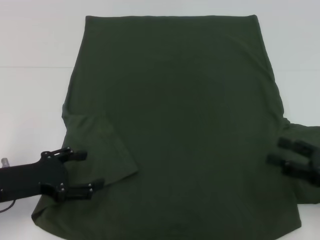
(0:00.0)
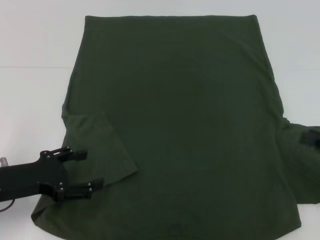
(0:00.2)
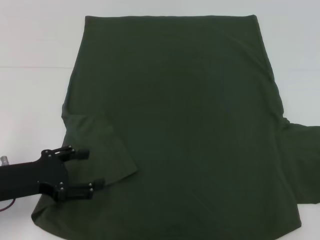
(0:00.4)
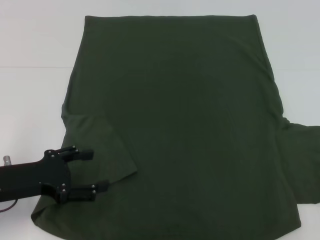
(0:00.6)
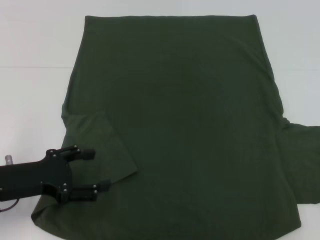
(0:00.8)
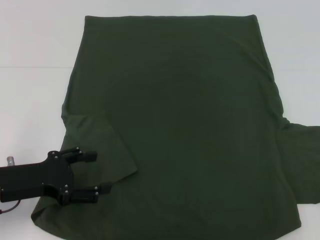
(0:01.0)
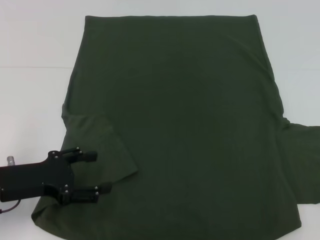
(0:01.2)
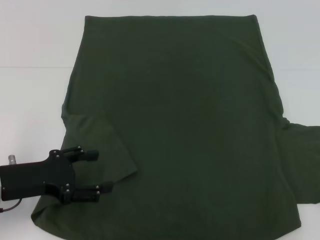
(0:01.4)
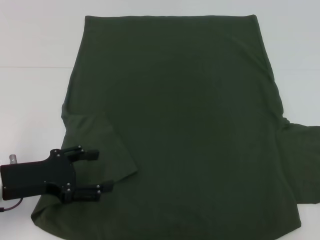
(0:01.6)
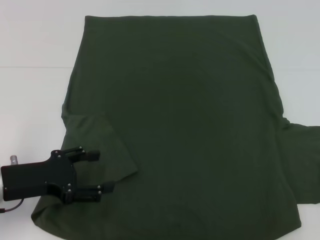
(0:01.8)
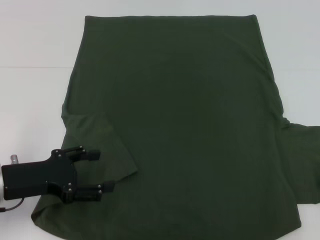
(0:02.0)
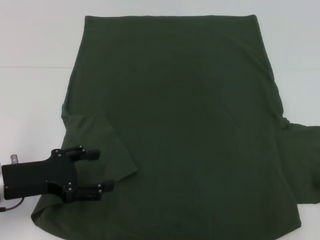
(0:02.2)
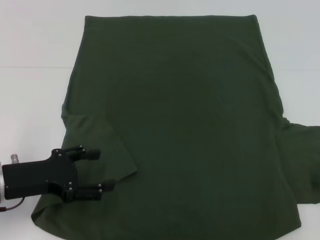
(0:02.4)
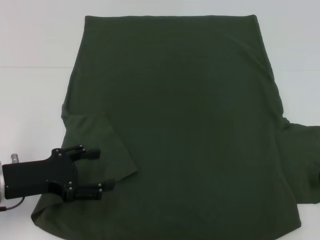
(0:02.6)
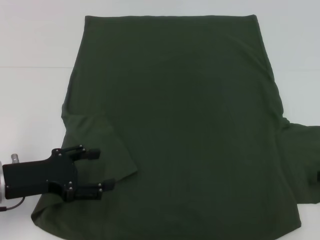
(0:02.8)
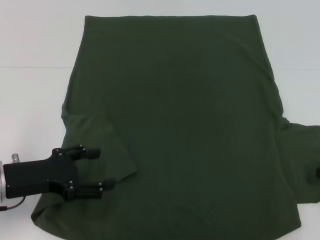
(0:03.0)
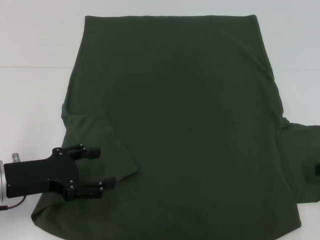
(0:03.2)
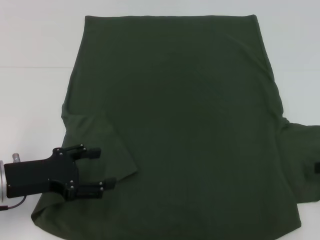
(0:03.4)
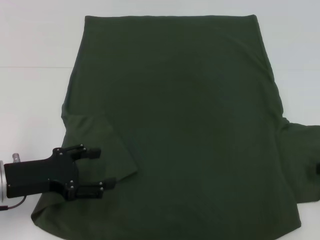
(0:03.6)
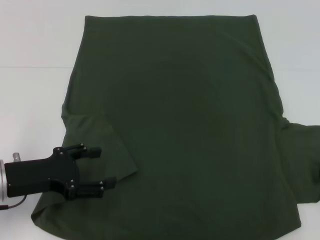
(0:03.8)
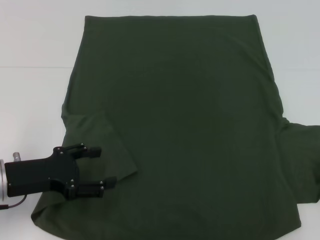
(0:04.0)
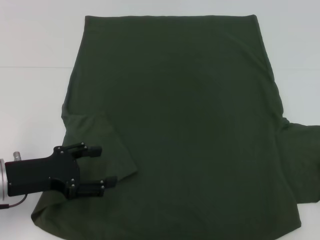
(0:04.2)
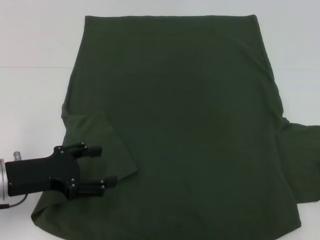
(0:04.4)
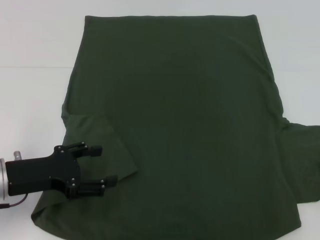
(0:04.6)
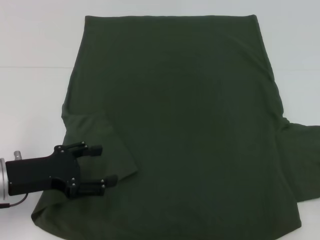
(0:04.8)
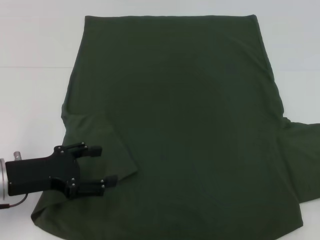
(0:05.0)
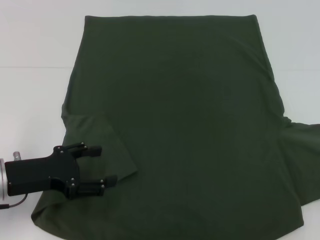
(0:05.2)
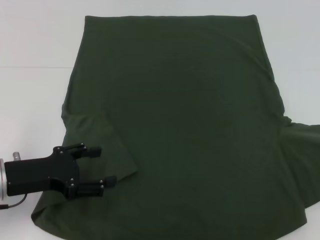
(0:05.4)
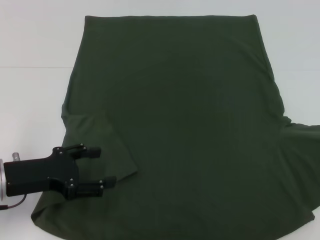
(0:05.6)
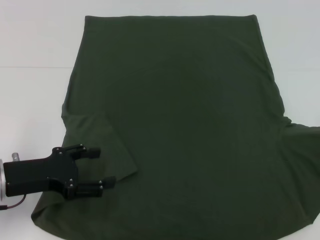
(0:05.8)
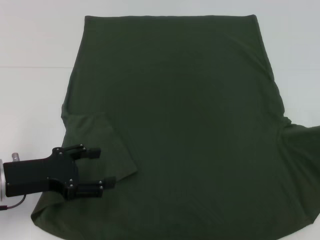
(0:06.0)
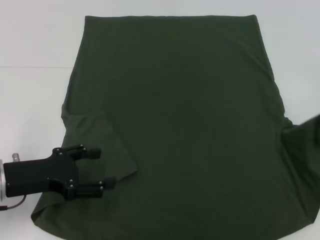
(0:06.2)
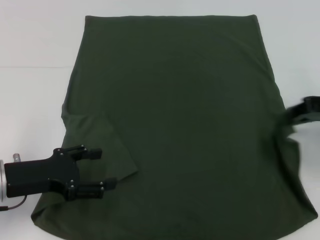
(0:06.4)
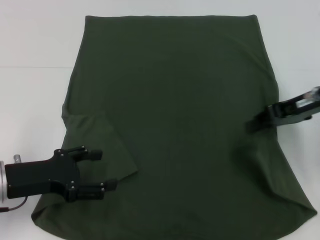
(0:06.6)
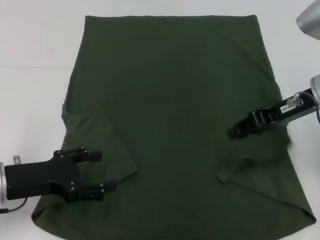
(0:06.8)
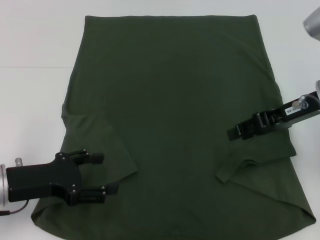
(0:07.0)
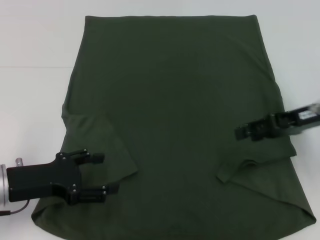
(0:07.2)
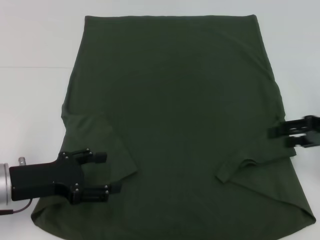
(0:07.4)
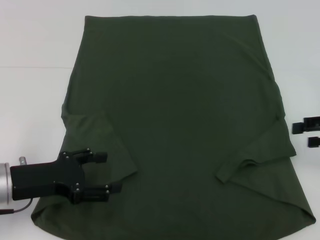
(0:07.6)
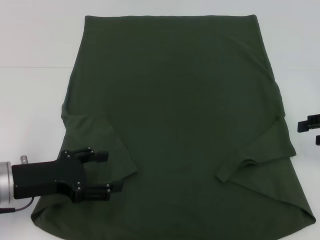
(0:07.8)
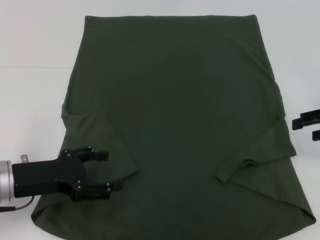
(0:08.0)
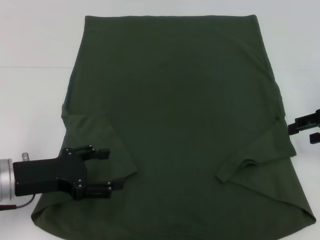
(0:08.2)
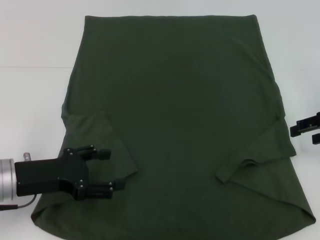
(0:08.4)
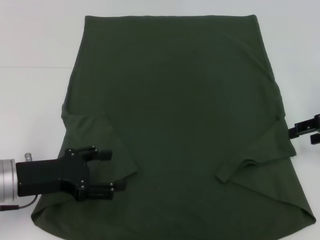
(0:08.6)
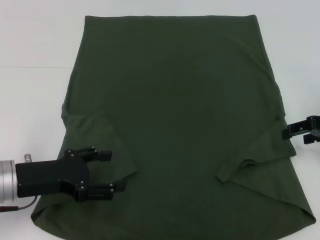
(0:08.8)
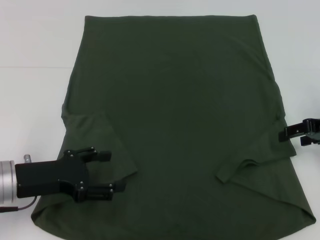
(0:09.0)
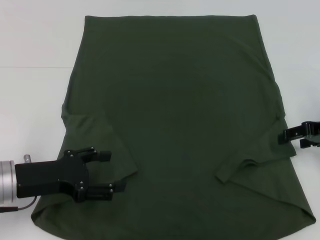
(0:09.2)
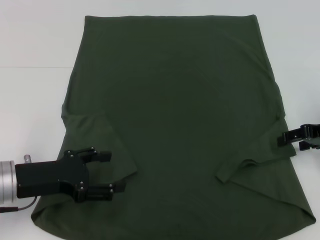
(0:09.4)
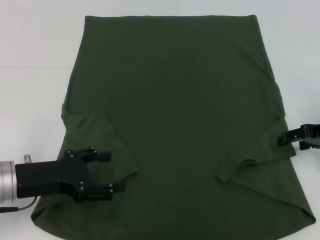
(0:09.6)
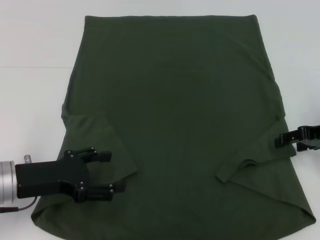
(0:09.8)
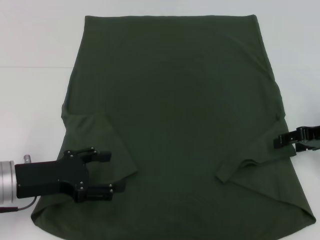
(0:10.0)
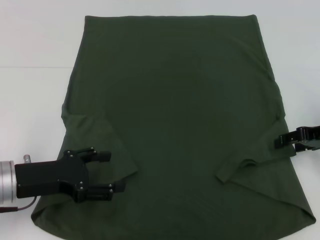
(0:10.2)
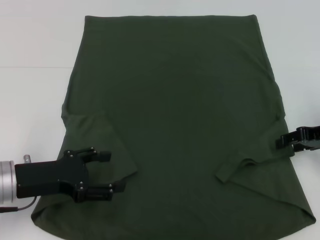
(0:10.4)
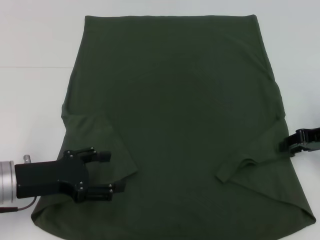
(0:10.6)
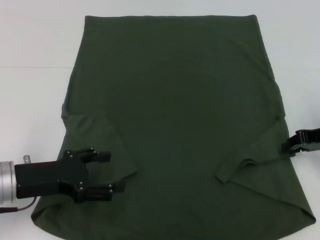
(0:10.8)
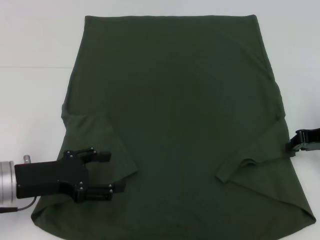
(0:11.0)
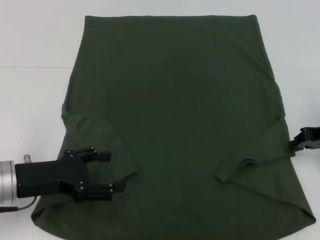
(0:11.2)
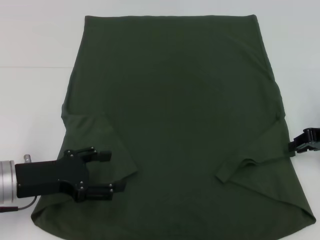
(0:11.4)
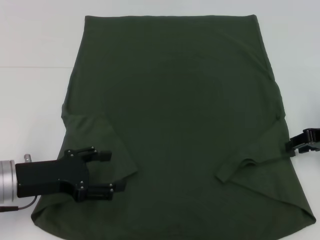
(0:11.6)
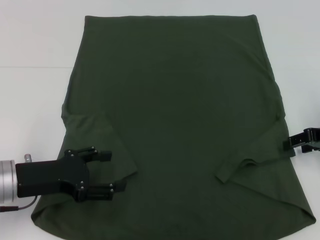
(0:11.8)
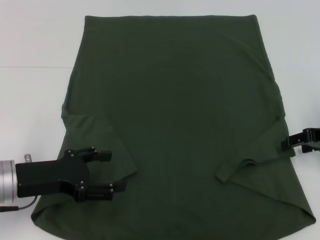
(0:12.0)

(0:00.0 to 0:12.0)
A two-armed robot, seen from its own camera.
0:00.0 - 0:01.6: The right gripper is displaced to the right, upward and forward by roughly 15 cm.
0:04.4 - 0:06.0: The right gripper goes approximately 5 cm upward.
0:06.0 - 0:07.6: The right gripper travels to the left and back again, some 15 cm each way, and opens its fingers.
0:07.6 - 0:09.0: The right gripper moves roughly 5 cm.
0:09.0 - 0:10.4: There are only small adjustments of the grippers.

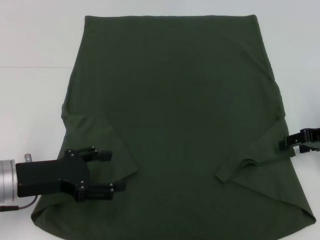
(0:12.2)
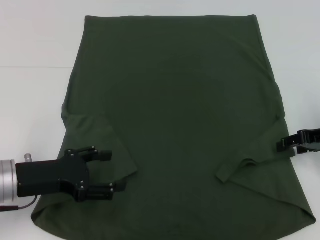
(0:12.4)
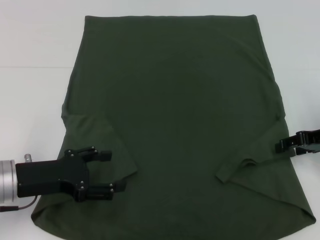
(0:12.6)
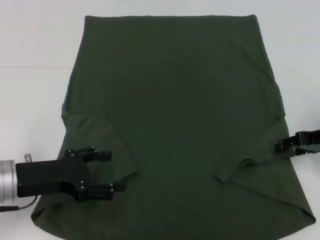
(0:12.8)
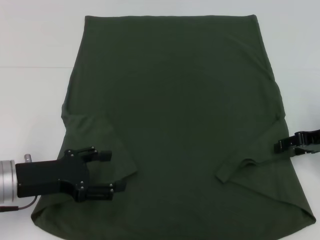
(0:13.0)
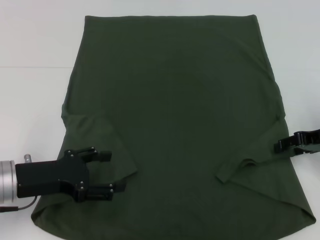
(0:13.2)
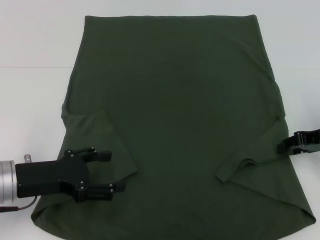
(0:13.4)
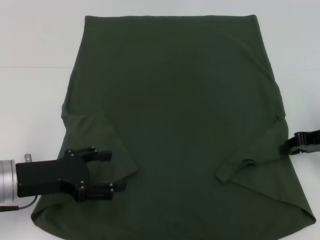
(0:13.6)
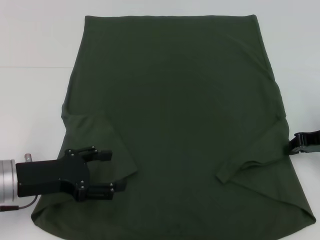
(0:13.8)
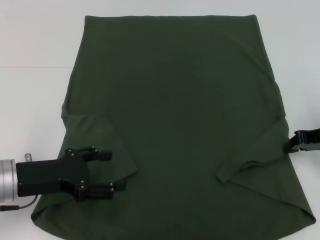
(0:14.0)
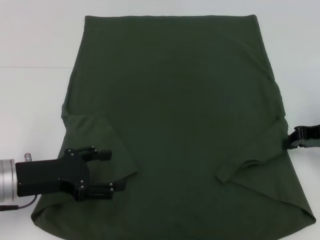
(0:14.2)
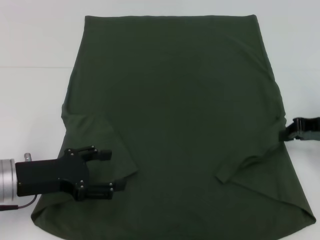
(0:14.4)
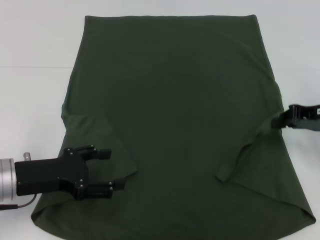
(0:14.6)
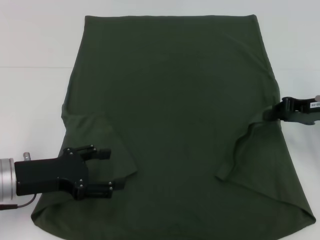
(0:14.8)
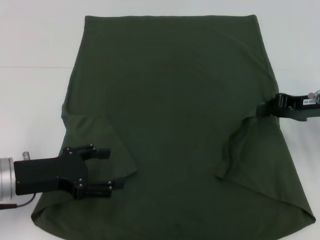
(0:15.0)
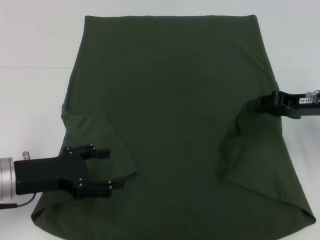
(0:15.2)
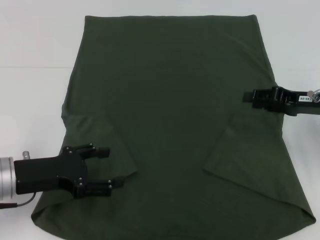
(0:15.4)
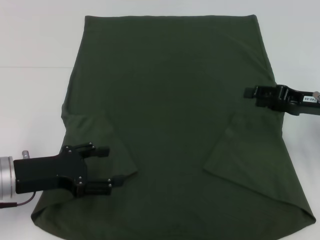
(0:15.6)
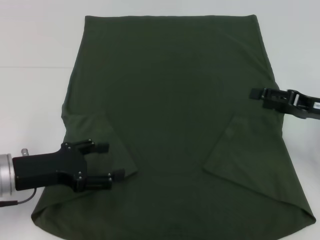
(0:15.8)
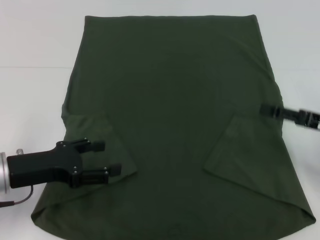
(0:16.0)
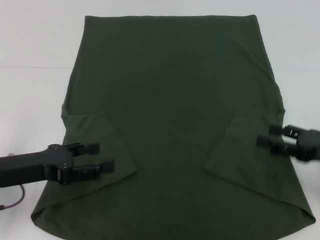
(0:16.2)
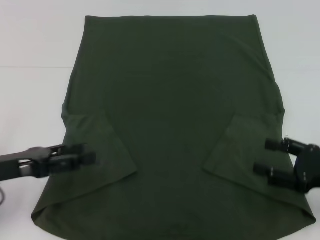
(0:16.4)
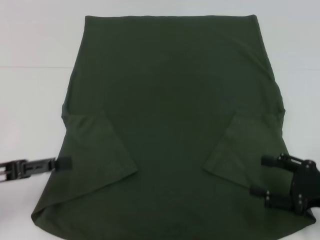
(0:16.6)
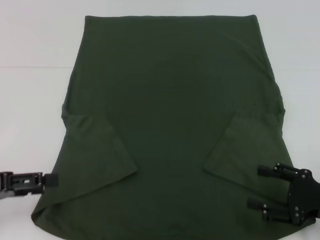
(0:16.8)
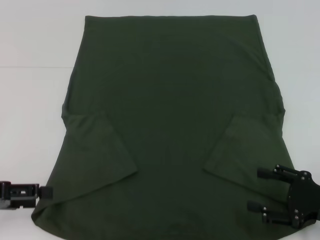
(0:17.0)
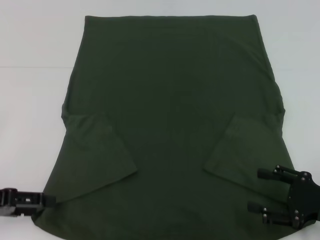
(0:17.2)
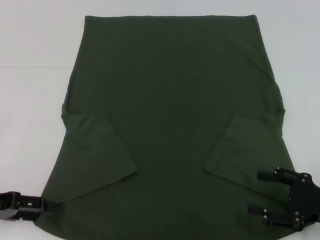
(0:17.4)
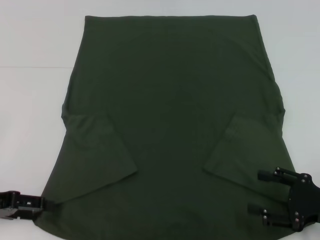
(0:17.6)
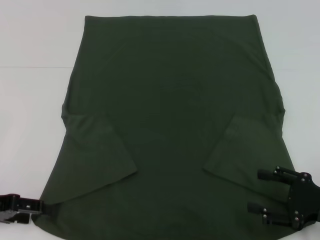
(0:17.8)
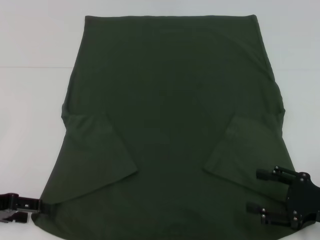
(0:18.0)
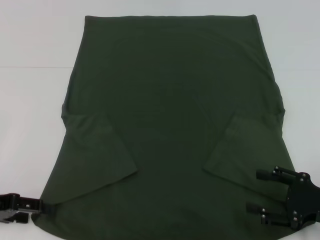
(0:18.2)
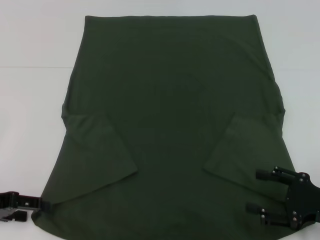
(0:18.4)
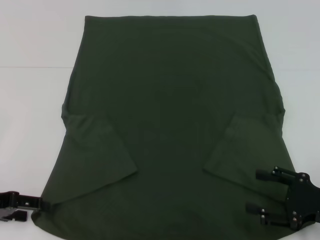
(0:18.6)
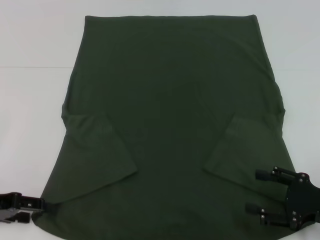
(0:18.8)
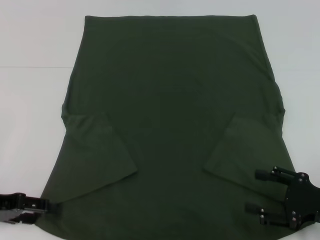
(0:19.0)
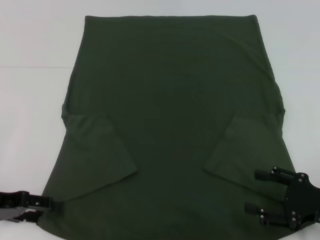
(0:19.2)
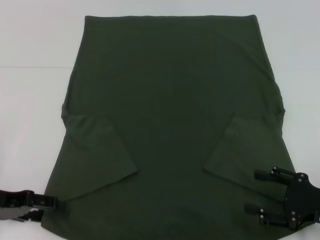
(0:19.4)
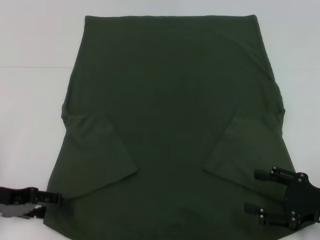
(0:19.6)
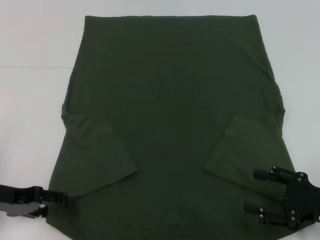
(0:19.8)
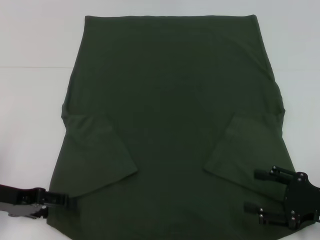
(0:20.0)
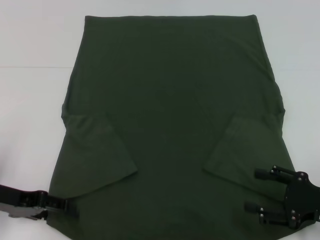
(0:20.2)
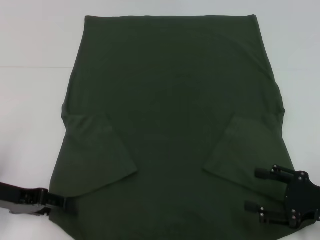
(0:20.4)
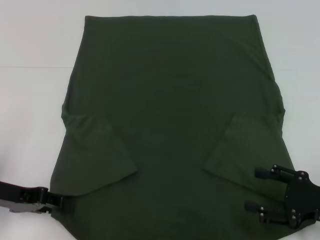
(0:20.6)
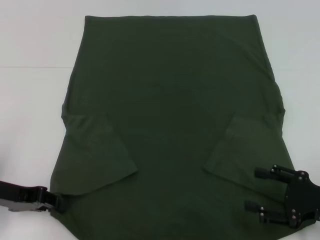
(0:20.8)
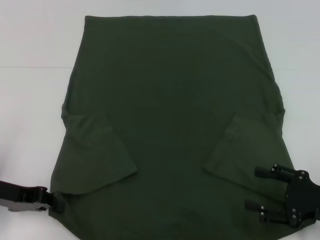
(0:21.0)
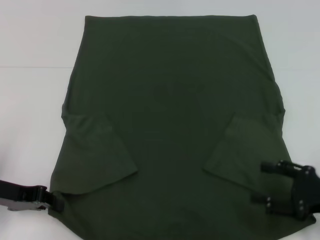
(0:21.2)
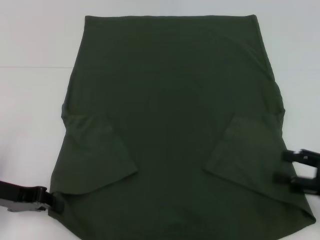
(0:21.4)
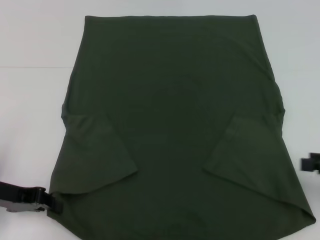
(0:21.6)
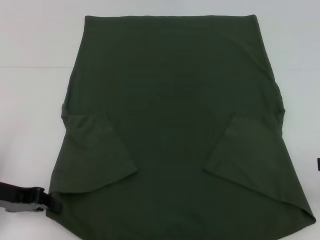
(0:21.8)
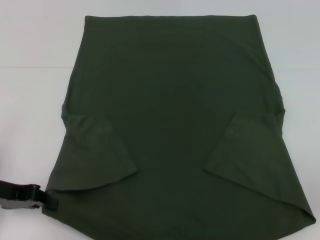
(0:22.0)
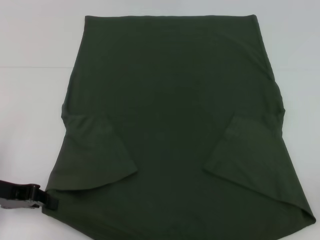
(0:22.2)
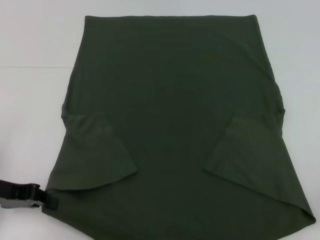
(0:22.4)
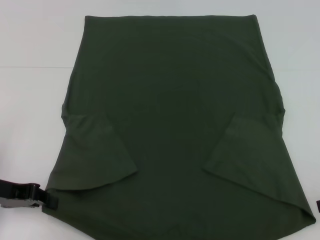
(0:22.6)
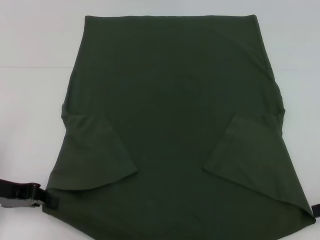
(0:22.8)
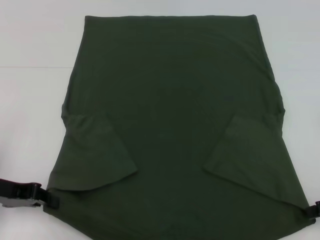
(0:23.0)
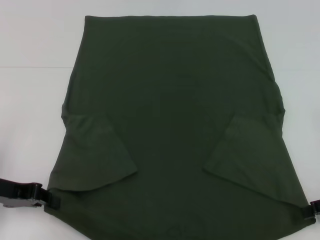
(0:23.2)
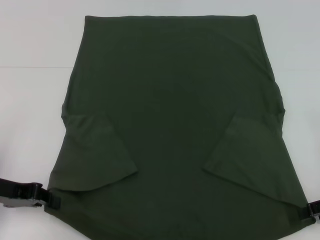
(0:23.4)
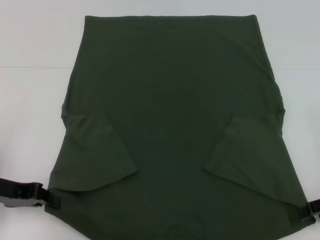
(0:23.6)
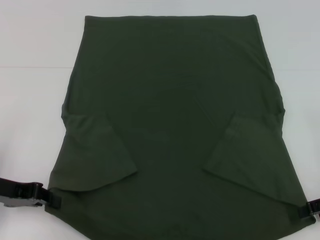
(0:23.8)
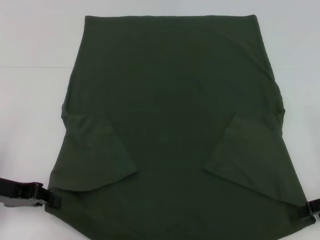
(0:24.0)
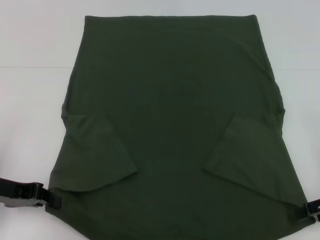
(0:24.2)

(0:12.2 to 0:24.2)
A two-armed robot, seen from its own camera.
Step, 0:12.2 - 0:15.6: Fold the bottom right sleeve with your right hand.
Step, 0:15.8 - 0:20.6: Grab the bottom left corner with your left hand.
0:12.2 - 0:13.8: The right gripper closes up.
0:15.2 - 0:16.6: The left gripper shifts roughly 5 cm to the left, while the right gripper heads backward and downward, covering roughly 15 cm, and opens up.
0:18.2 - 0:19.8: The grippers move only a little.
0:19.8 - 0:21.2: The left gripper closes up.
0:21.2 - 0:22.6: The right gripper heads upward and to the right, covering some 10 cm.
0:22.6 - 0:24.2: There are only small adjustments of the grippers.
